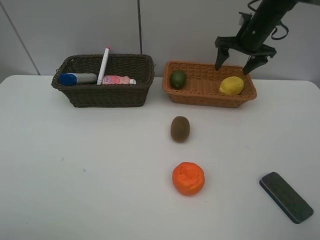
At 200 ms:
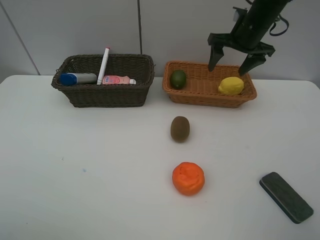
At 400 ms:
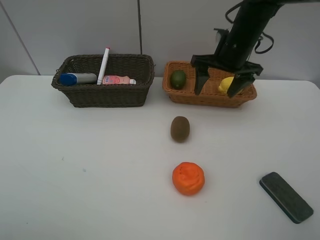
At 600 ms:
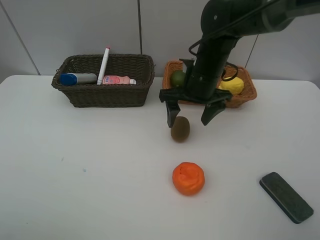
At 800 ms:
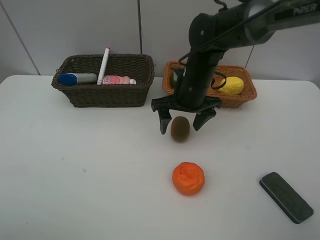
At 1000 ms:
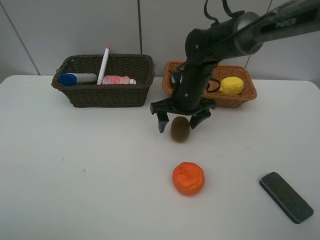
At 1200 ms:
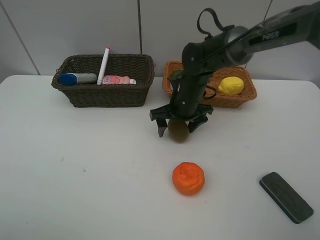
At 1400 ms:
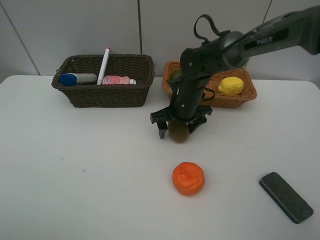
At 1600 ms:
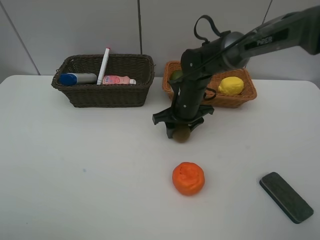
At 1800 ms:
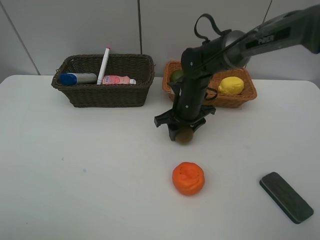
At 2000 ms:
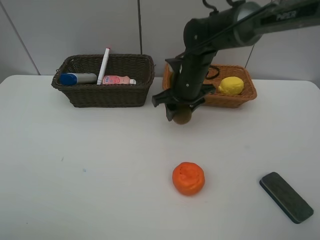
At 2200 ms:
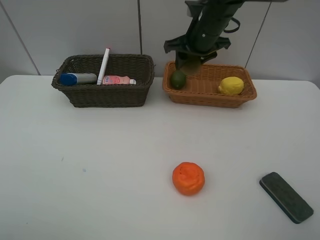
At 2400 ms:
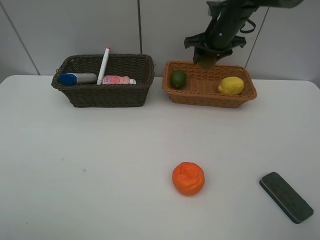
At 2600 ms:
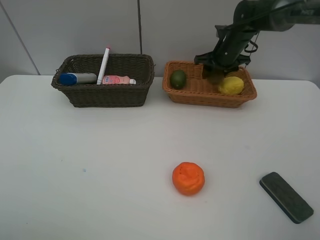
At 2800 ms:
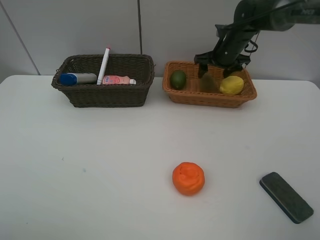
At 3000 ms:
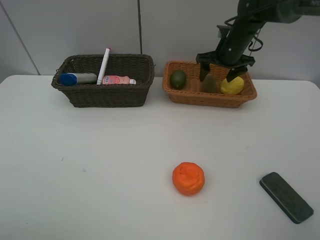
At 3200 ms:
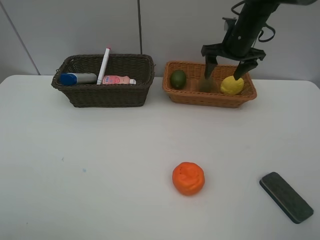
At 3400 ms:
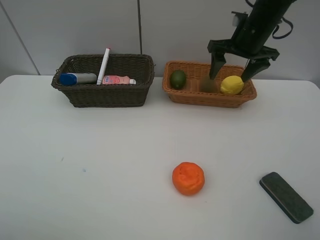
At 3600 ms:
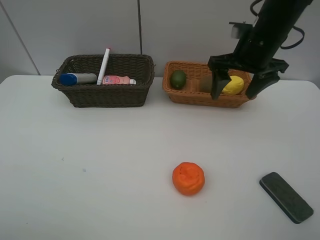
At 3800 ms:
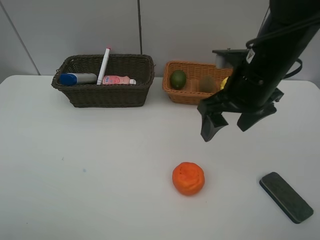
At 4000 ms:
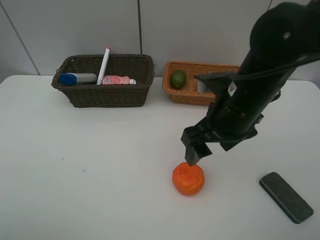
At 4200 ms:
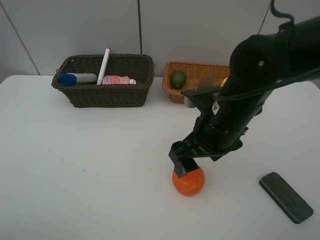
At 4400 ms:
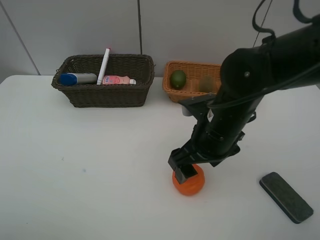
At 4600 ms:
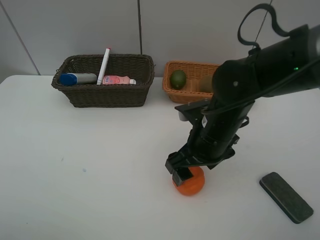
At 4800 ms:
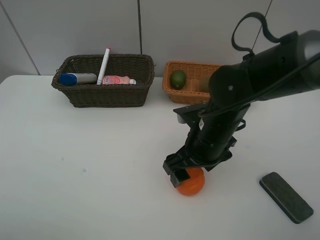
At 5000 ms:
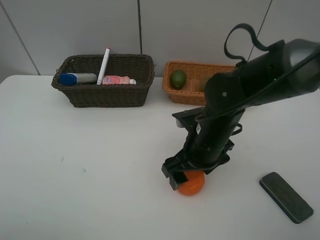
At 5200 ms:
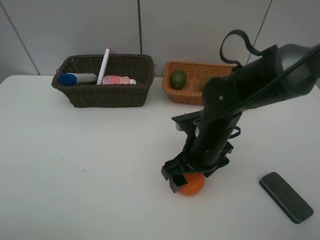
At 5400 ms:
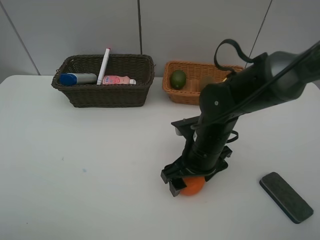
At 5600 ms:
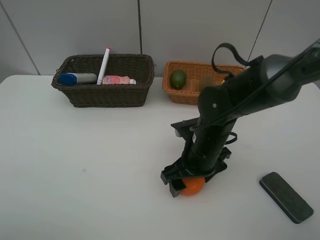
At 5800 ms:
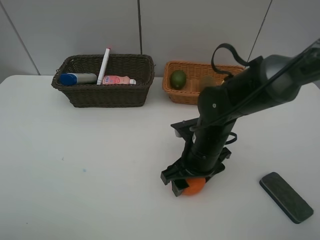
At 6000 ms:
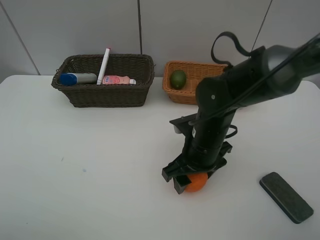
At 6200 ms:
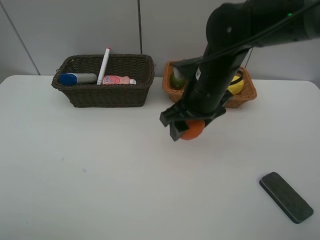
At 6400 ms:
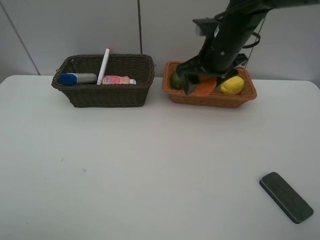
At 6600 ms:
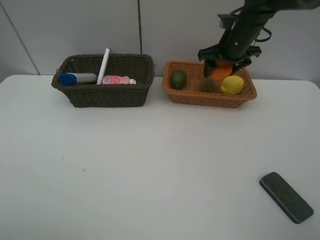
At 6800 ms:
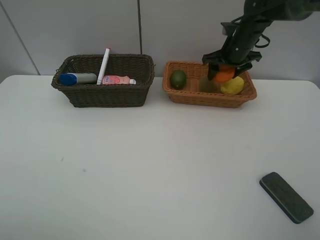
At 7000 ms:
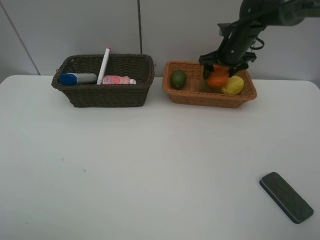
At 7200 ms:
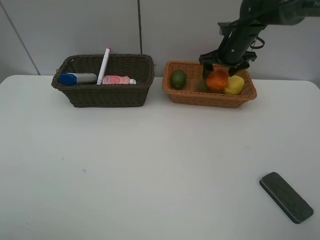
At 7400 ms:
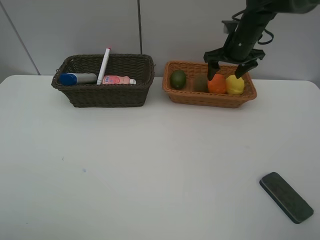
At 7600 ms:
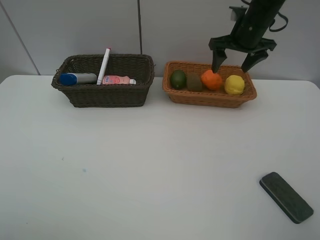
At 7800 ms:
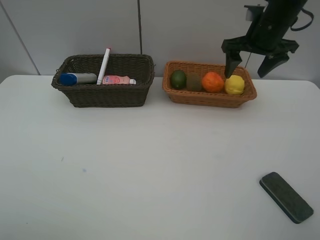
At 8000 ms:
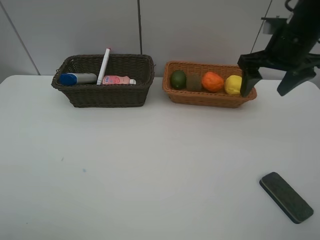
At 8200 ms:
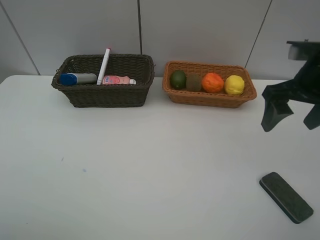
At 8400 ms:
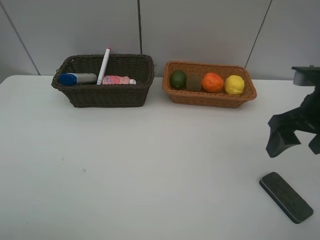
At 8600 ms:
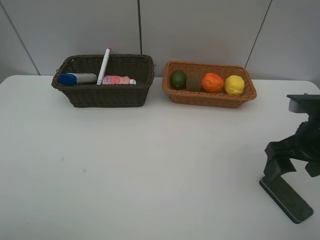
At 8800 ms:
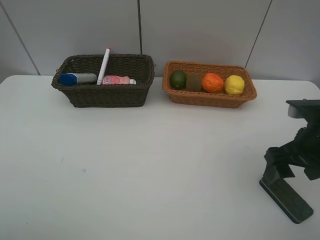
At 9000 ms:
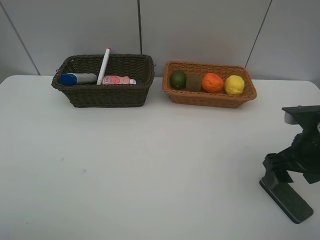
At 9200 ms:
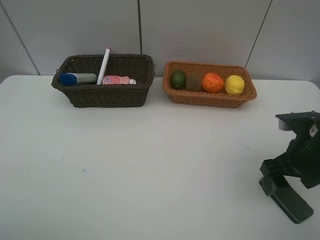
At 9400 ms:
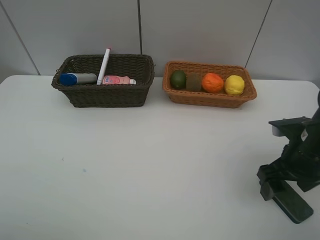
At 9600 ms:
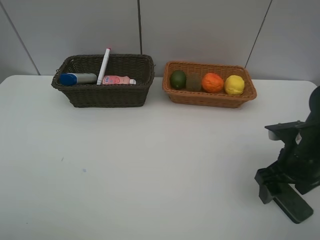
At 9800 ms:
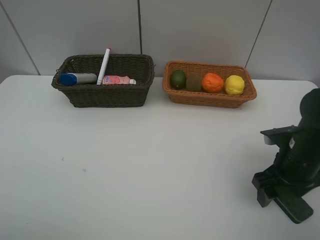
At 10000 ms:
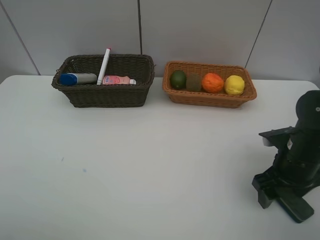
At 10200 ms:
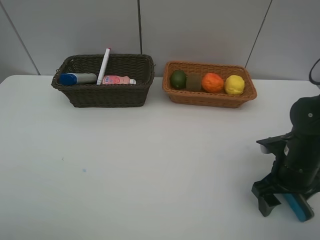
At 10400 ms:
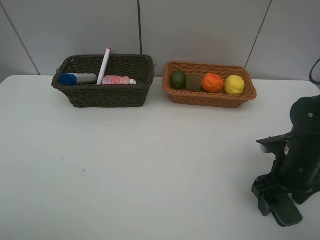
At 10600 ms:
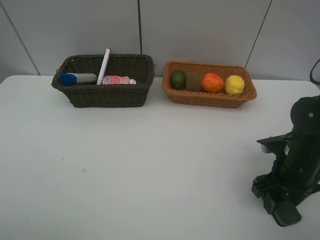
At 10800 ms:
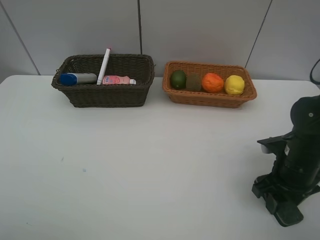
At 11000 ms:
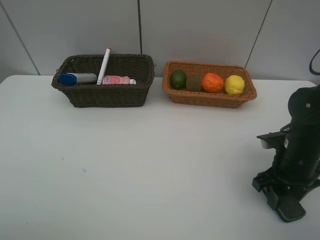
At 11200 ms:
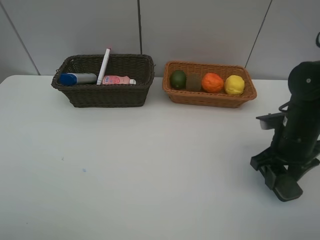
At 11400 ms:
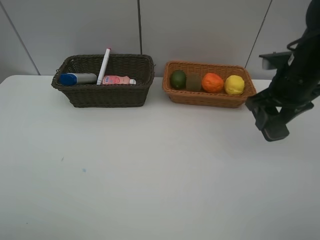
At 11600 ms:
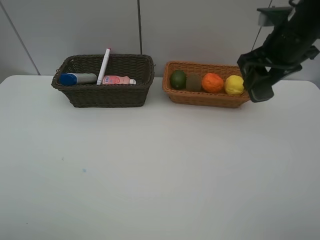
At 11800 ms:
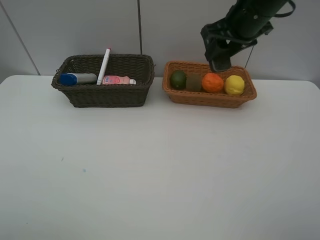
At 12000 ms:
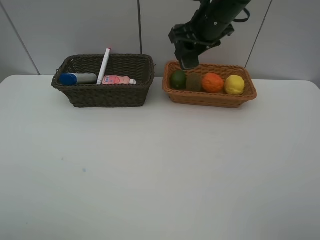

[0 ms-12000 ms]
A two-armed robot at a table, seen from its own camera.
Task of the whole recording: Place multiple objects separately in different baskets.
Step, 0 ms to 2000 ms: Pick up kiwi with right gripper.
Step, 2200 ms to 2800 ms: Place the kiwi in the light basket with right gripper.
Step, 3000 ms to 6000 ms: Pick up the orange with right gripper.
Step, 6200 ms to 7400 ms: Place the orange in the light basket with right gripper.
Step, 7600 ms to 11000 ms: Pick up blackboard eraser with right gripper.
0 ms to 1600 ms: The right gripper travels to the left, downward and backward by roughly 25 cm, and closes up.
1600 ms to 3000 ms: The right gripper moves to the right, forward and upward, roughly 20 cm, and opens up.
3000 ms to 4400 ms: The right gripper travels backward by approximately 25 cm.
4400 ms to 6000 ms: The right gripper closes its fingers.
6000 ms to 7600 ms: The right gripper heads forward, upward and to the right, covering about 25 cm, and opens.
7600 ms to 9000 ms: The right gripper travels backward by approximately 25 cm.
9000 ms to 10400 ms: The right gripper travels downward by approximately 5 cm.
10400 ms to 12000 ms: The right gripper shifts roughly 30 cm forward, to the left and upward, and closes up.

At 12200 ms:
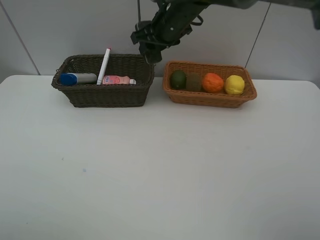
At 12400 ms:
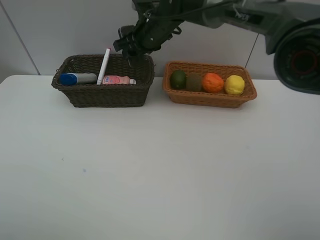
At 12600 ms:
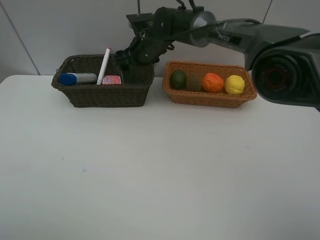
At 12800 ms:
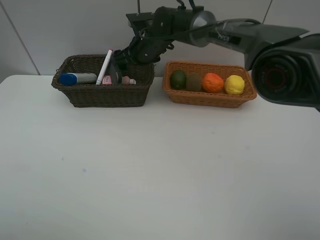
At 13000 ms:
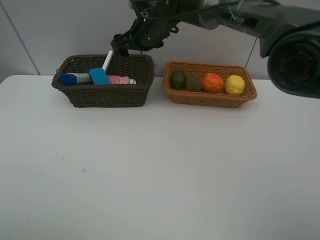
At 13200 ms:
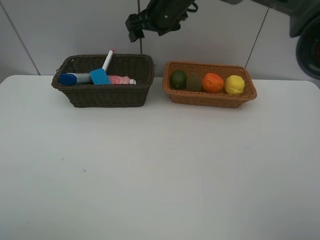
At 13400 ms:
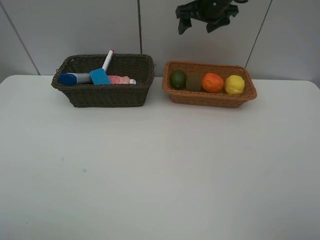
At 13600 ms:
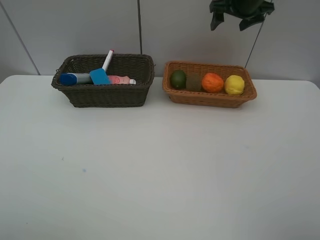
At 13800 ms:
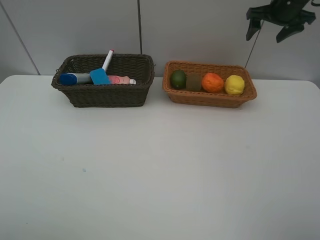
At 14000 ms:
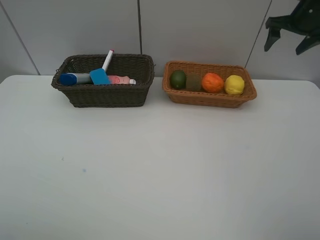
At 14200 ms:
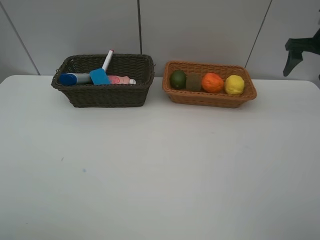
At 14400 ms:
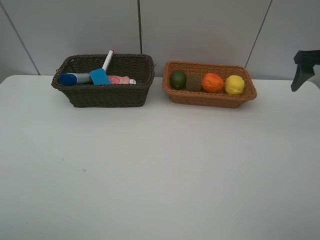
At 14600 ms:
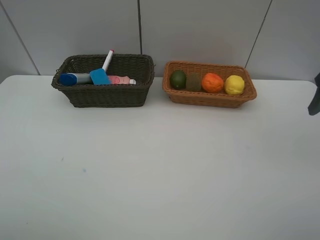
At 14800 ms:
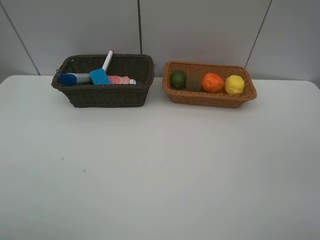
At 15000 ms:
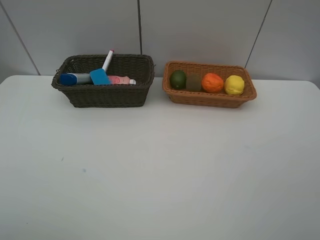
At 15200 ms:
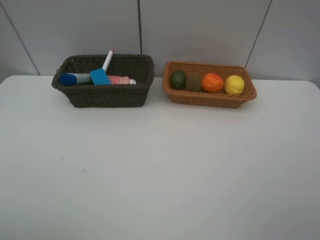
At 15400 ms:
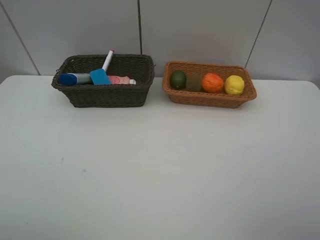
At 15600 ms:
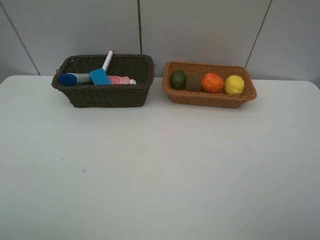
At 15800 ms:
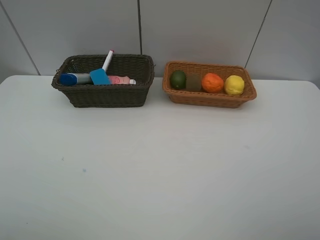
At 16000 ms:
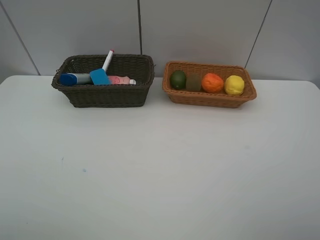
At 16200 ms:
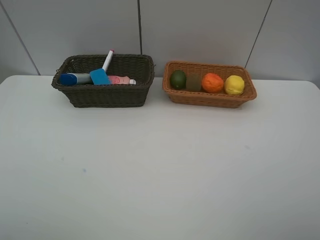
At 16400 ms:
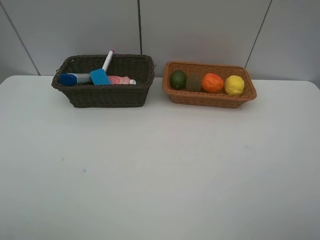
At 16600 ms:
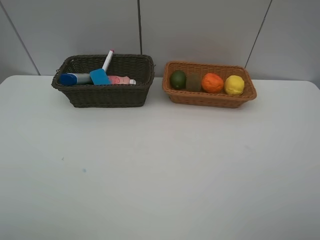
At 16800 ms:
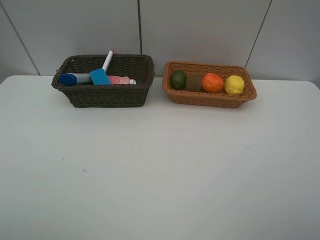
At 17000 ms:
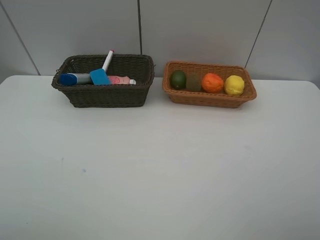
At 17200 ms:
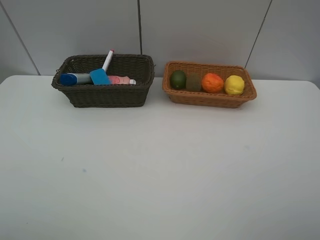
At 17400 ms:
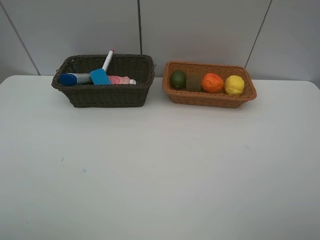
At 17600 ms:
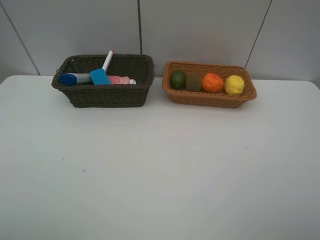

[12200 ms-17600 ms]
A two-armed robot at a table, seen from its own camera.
Task of the whole recording: Place multiple objects separately in different baskets.
12200 ms to 13600 ms: The right gripper goes about 20 cm to the right, and opens.
13600 ms to 15000 ms: The right gripper heads backward, covering roughly 40 cm.
16200 ms to 17600 ms: Both grippers stay about where they are.
